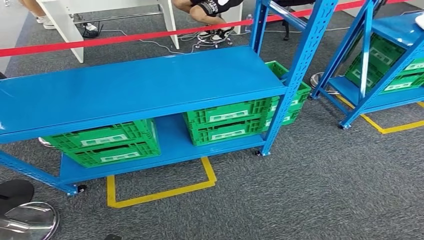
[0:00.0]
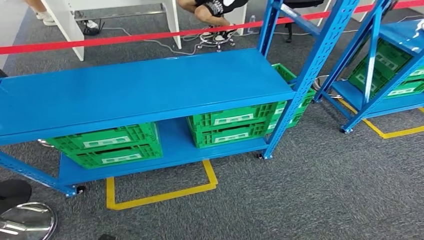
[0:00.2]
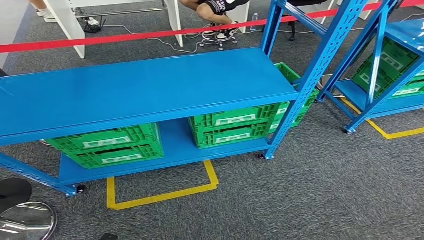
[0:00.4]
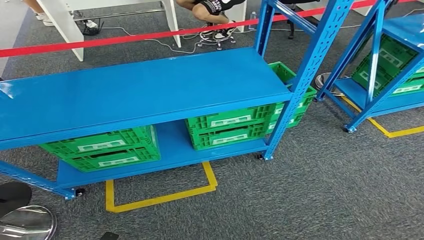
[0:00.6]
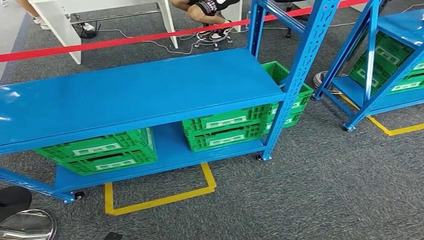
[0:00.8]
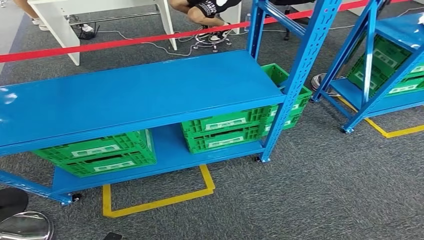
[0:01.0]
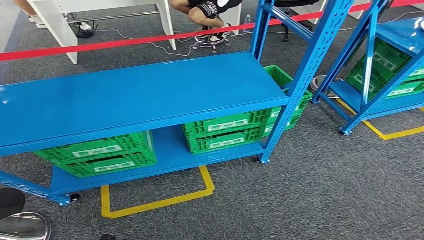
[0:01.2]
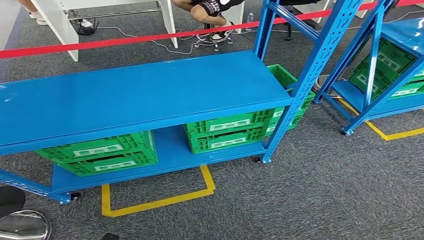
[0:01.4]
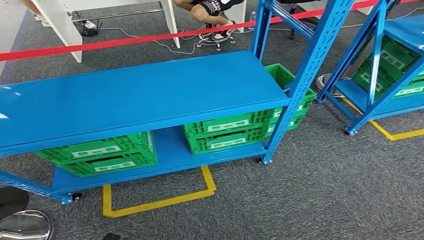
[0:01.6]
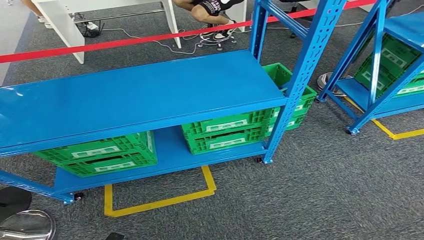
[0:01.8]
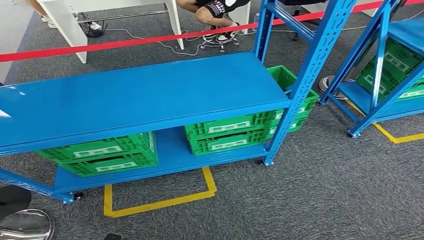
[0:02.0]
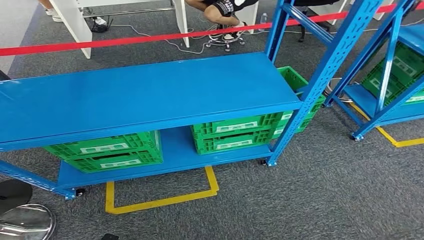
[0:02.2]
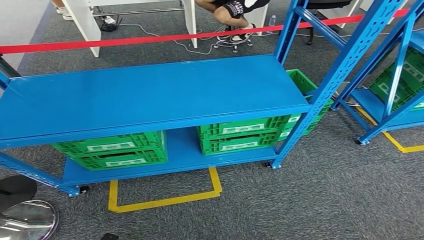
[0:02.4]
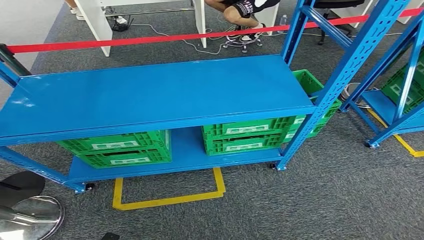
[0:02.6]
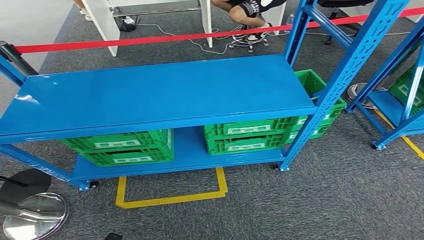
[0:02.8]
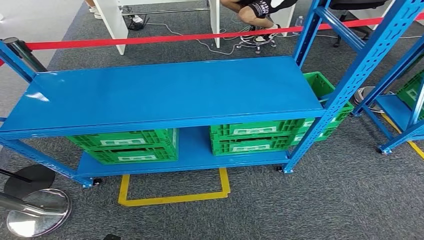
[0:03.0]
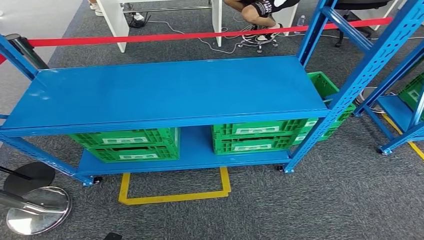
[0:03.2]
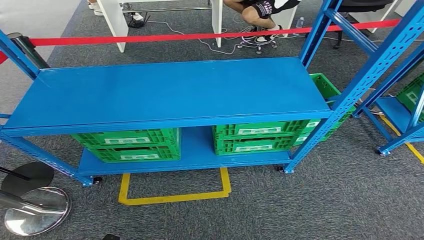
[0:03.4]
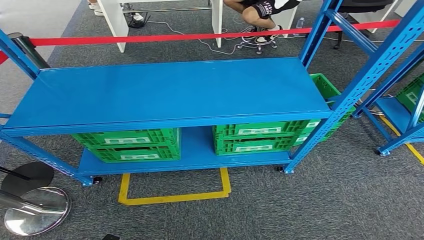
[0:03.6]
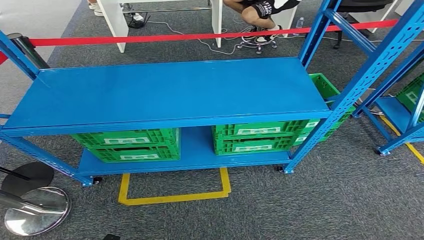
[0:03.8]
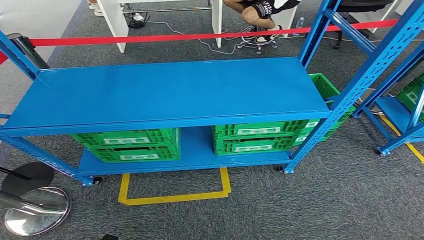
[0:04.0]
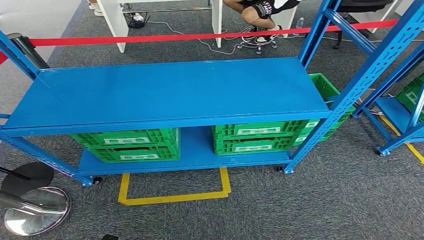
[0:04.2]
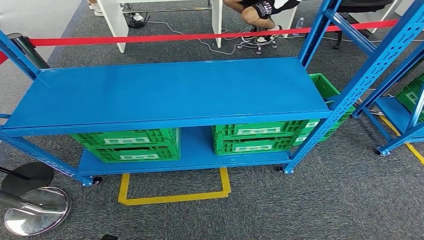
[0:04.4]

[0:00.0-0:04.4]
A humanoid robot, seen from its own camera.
Step, 0:00.0 to 0:04.4: Move to the initial position at the workbench.
0:03.0 to 0:04.4: The hands stay close to where they were, moving slightly.
